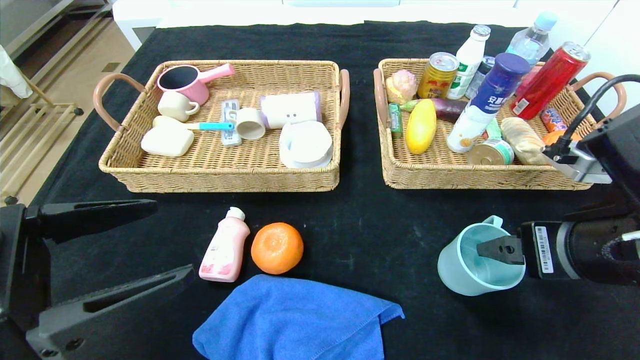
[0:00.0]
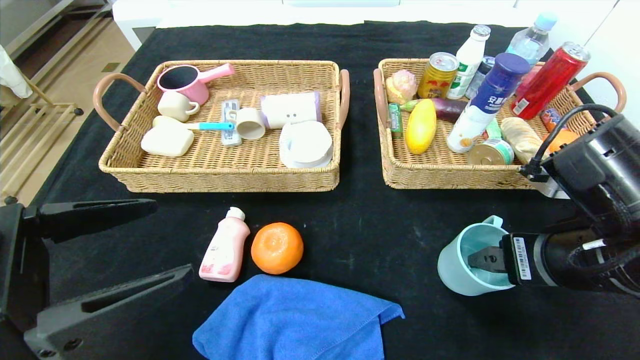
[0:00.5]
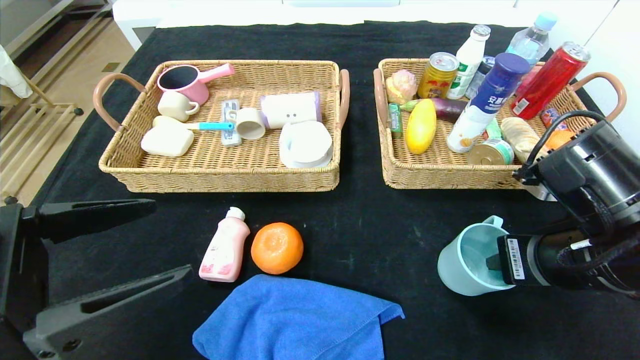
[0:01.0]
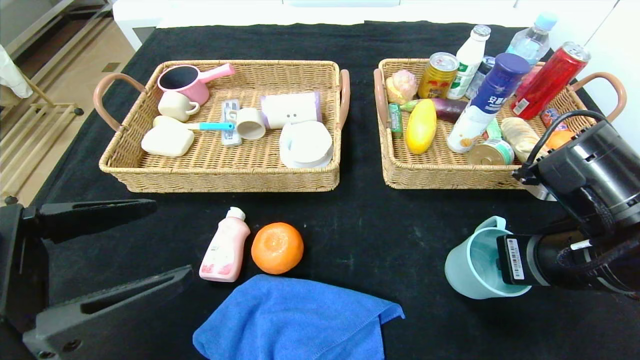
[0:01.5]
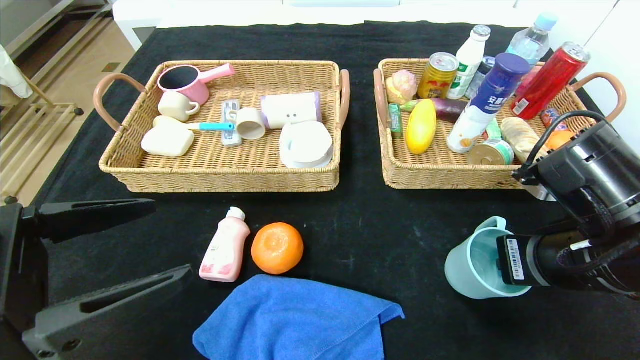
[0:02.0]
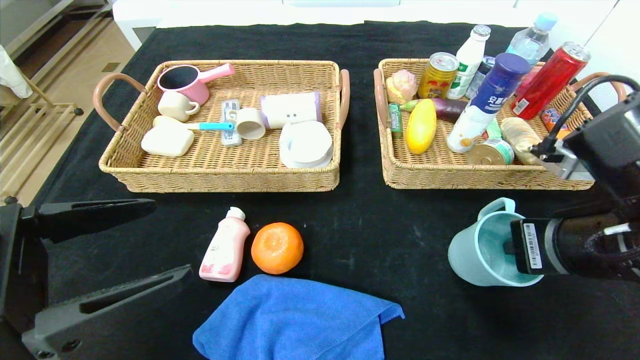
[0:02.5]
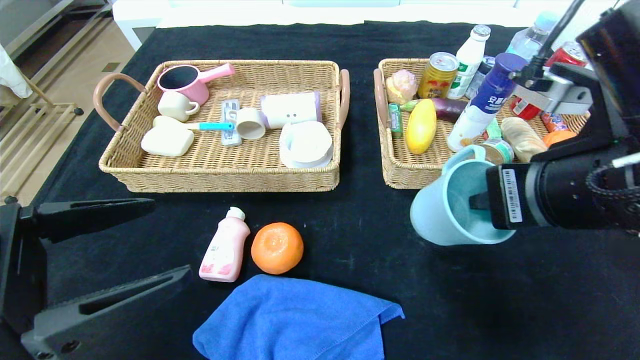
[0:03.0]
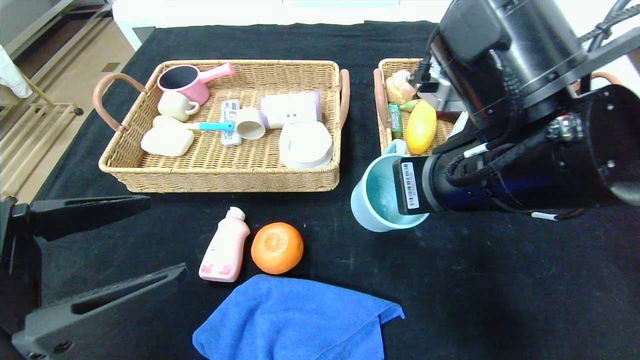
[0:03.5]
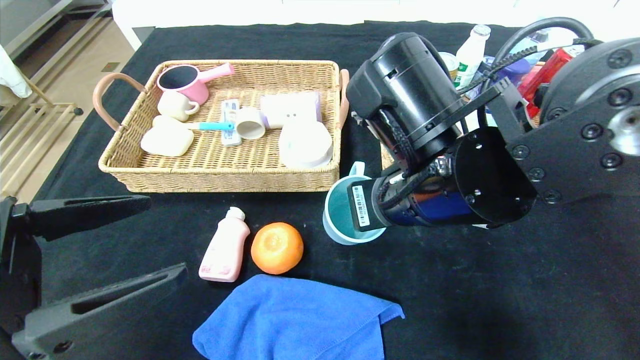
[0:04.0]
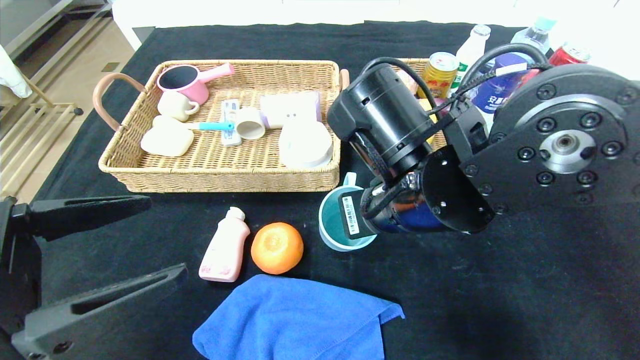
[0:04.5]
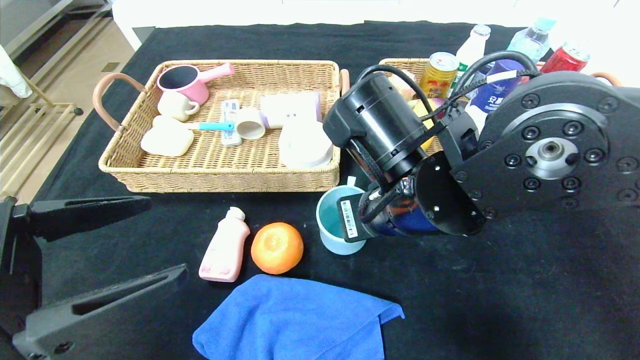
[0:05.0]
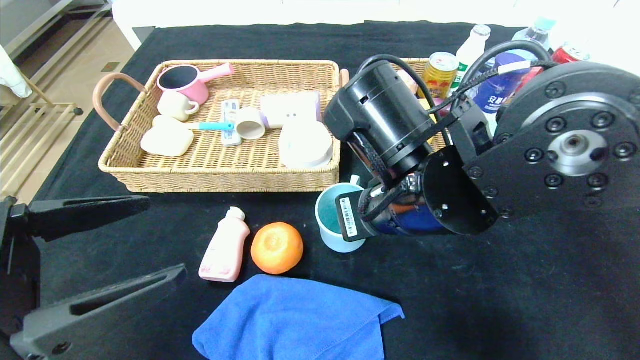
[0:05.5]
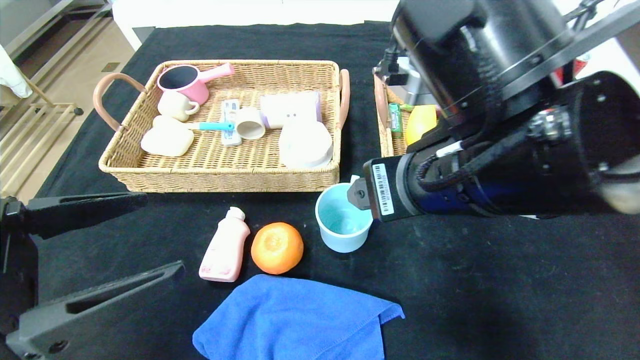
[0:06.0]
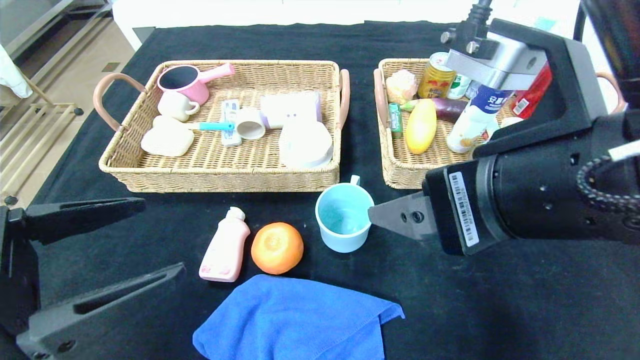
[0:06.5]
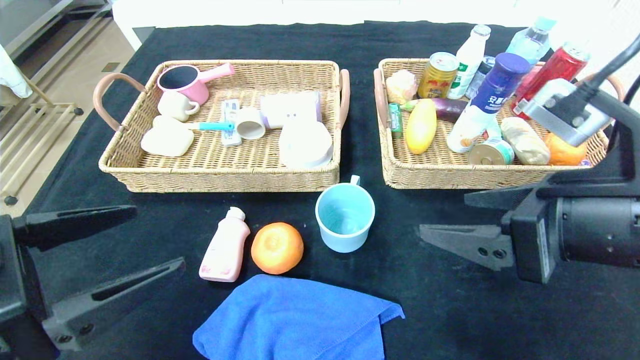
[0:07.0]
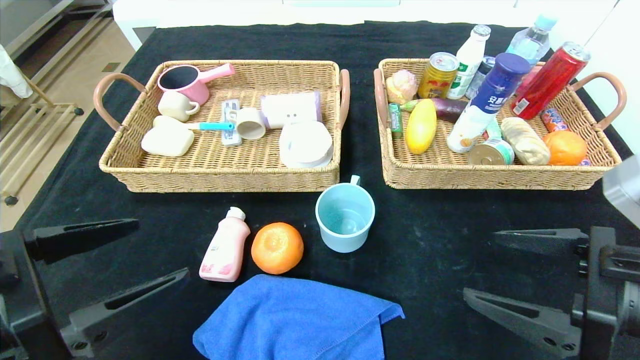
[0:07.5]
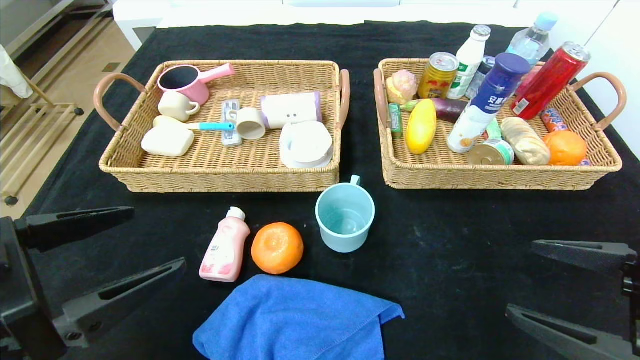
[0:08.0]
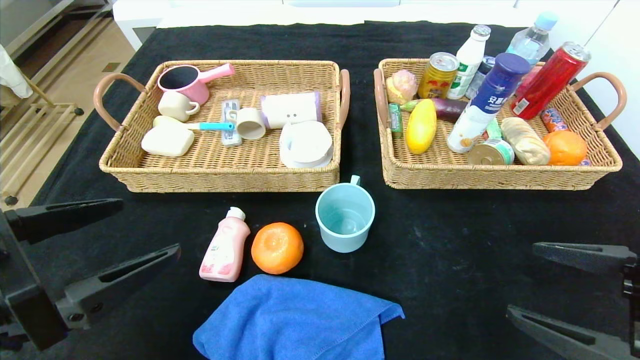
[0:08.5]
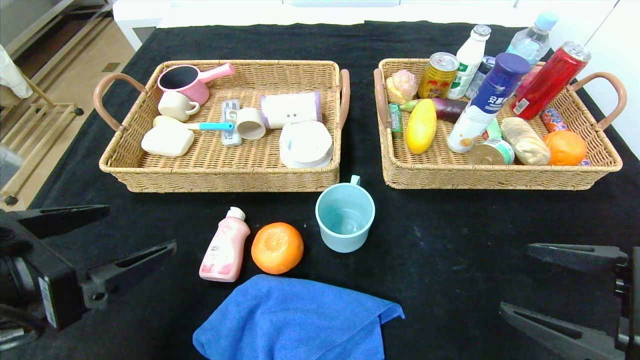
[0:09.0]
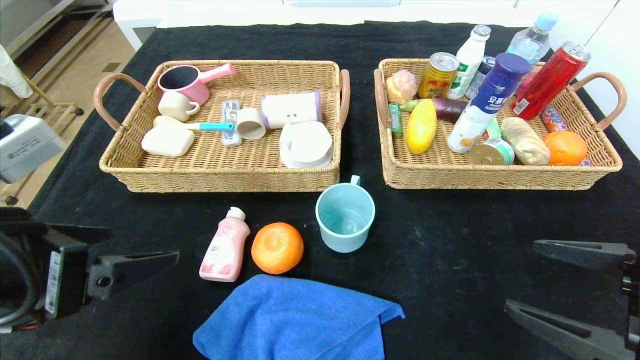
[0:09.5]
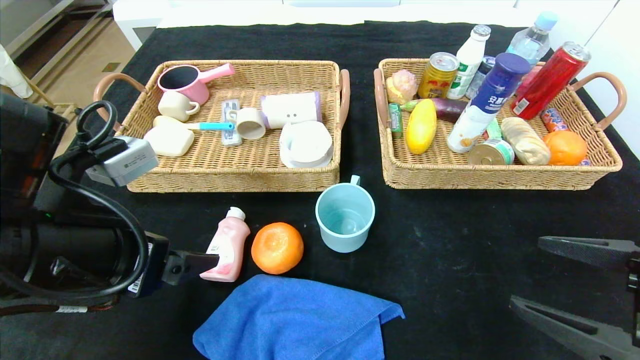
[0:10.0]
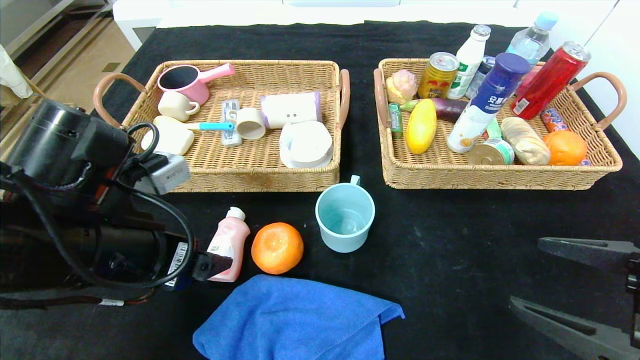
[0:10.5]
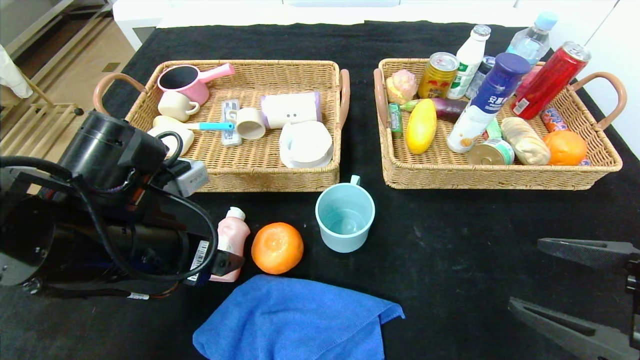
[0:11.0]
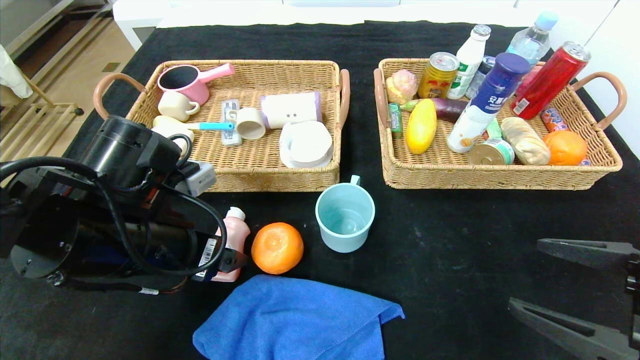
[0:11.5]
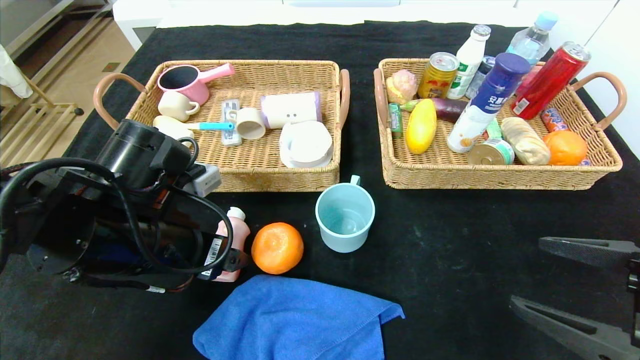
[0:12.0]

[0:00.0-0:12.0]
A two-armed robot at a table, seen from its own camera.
Step, 0:00.0 to 0:07.0: Place the blue cup in the center of the table.
0:00.0 to 0:02.0: The right gripper closes its fingers.
0:02.0 to 0:04.0: The right gripper heads to the left, covering some 15 cm.
0:04.0 to 0:06.0: The right gripper shifts by approximately 5 cm, and opens up.
0:06.0 to 0:08.0: The right gripper shifts roughly 20 cm to the right, downward and backward.
0:08.0 to 0:10.0: The left gripper goes approximately 5 cm forward.
0:10.0 to 0:12.0: The left gripper moves forward, some 5 cm.

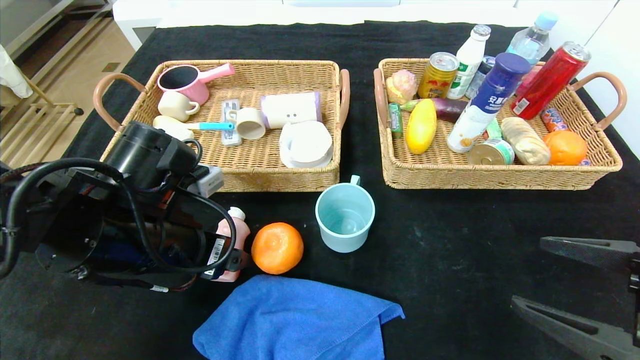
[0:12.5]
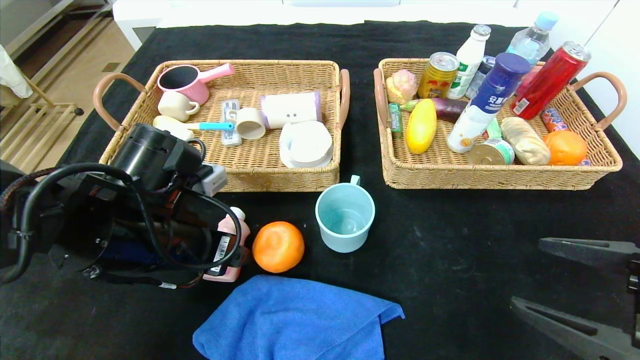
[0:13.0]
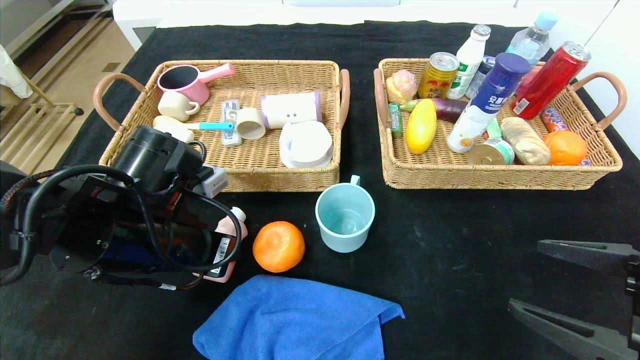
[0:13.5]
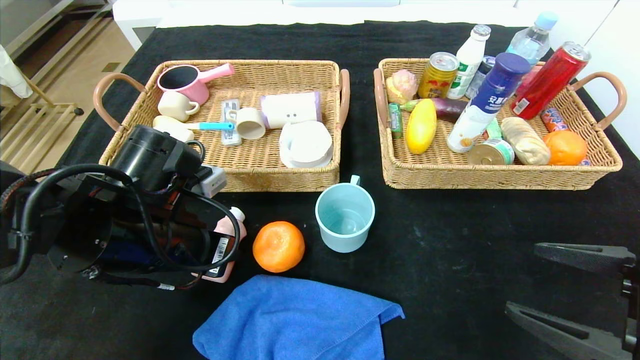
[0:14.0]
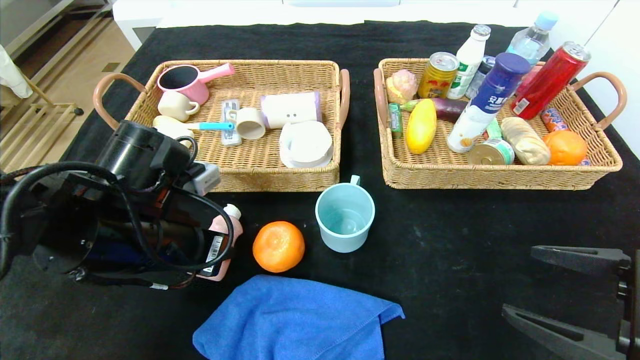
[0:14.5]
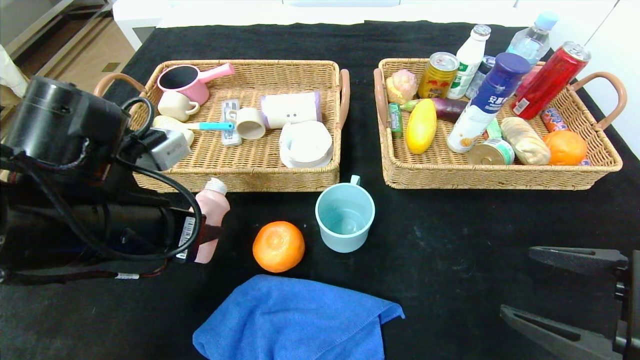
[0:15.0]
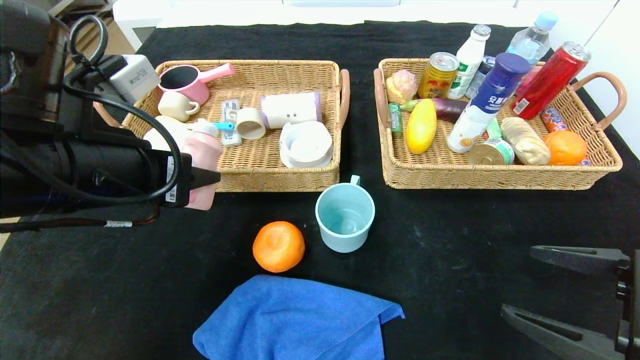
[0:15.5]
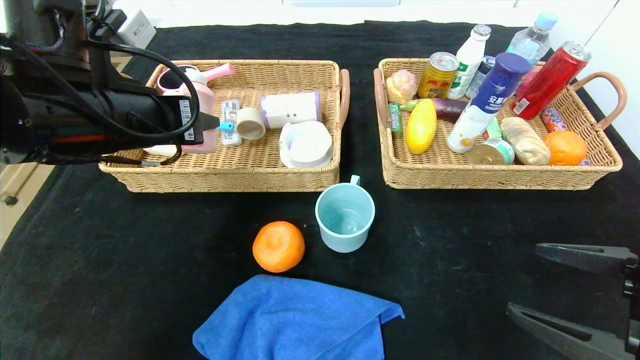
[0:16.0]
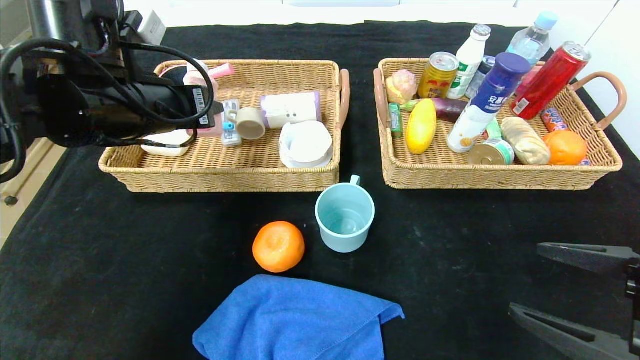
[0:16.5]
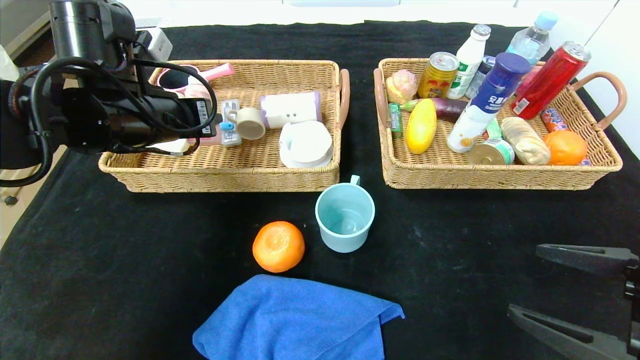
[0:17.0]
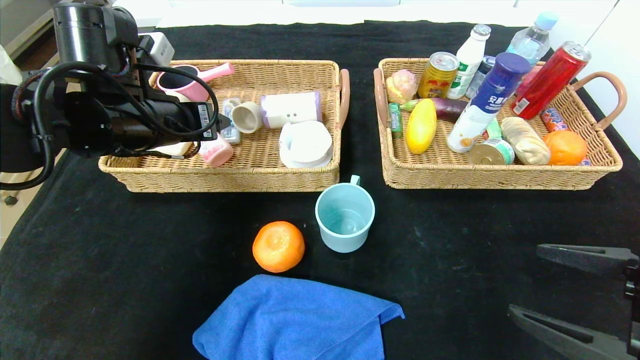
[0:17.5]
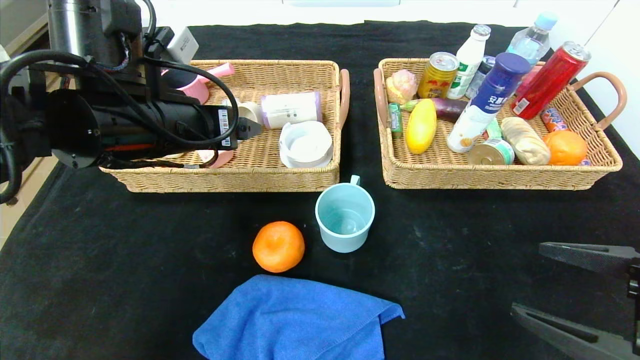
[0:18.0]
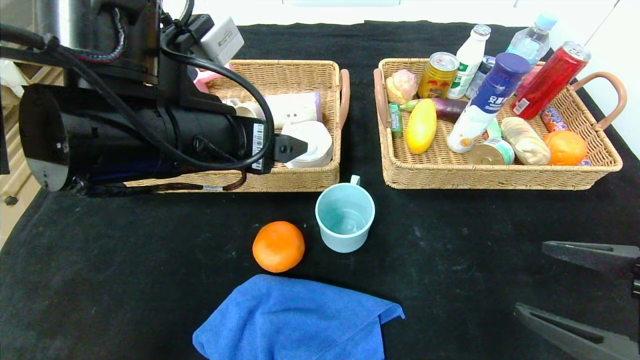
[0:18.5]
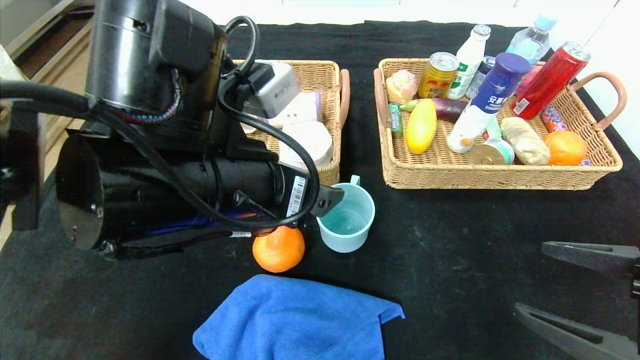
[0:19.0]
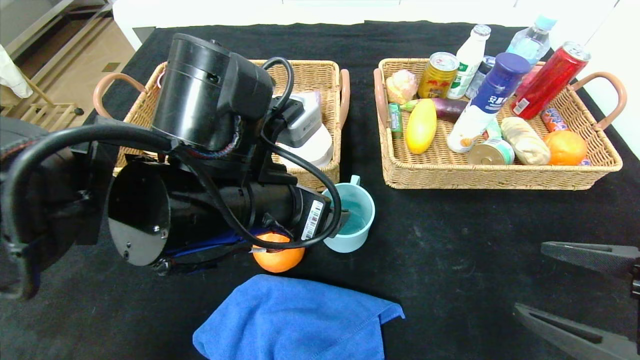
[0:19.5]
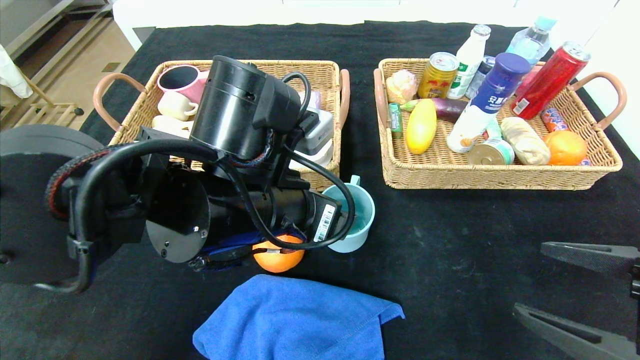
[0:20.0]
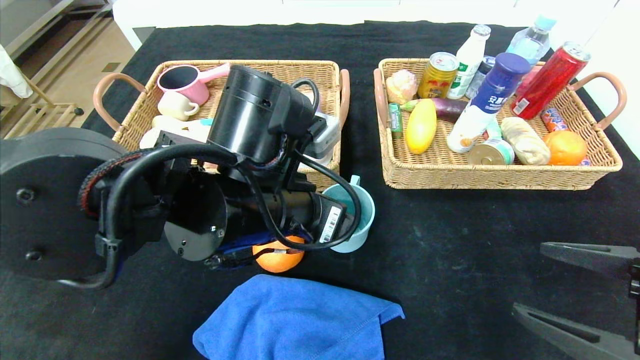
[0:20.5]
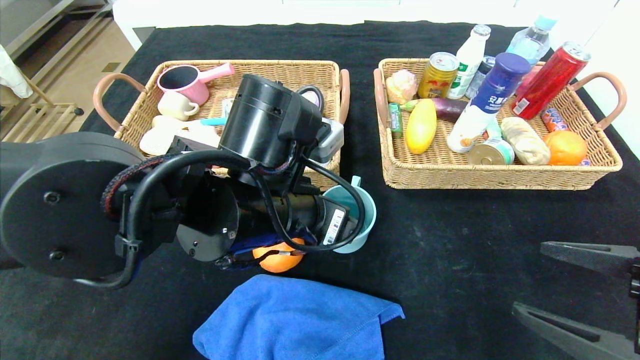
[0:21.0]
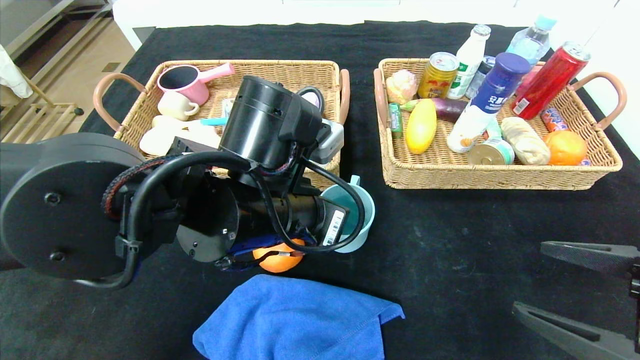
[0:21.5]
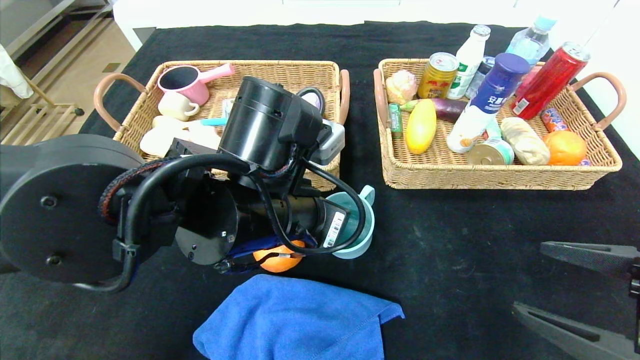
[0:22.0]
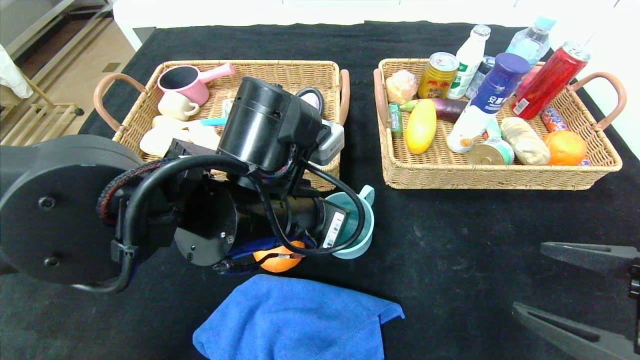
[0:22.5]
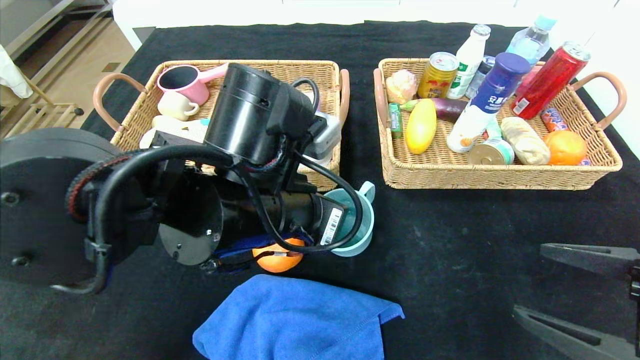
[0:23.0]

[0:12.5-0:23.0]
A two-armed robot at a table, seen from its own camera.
Step, 0:12.5 to 0:19.0: Pick up the washing liquid and put it in the left basket.
0:12.5 to 0:14.5: The left gripper closes.
0:14.5 to 0:16.5: The left gripper goes roughly 10 cm upward and forward.
0:16.5 to 0:19.0: The left gripper heads to the right and backward, covering about 15 cm, and opens up.
0:19.0 to 0:21.0: The left gripper shifts by approximately 5 cm.
0:21.0 to 0:23.0: The left gripper closes.
